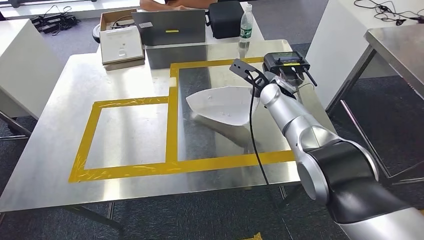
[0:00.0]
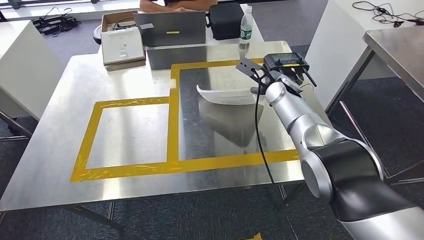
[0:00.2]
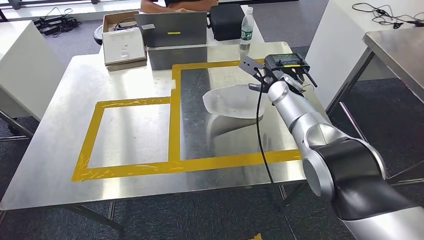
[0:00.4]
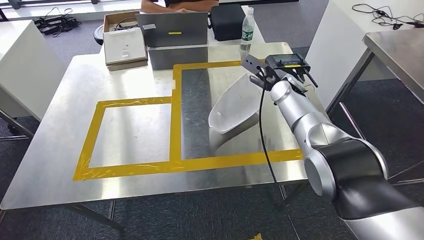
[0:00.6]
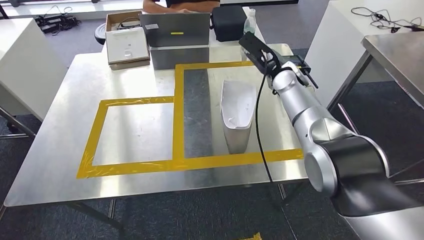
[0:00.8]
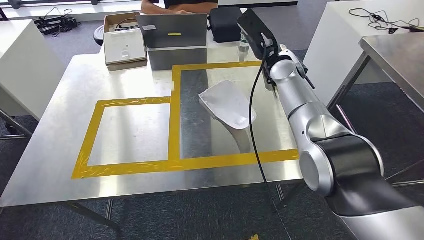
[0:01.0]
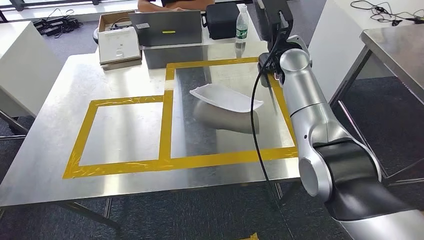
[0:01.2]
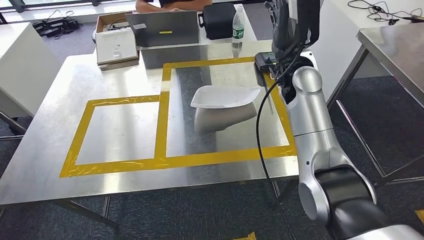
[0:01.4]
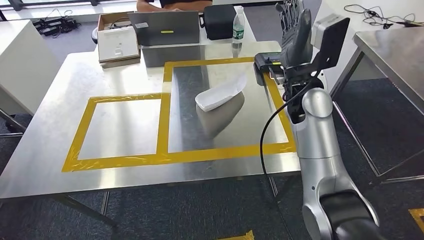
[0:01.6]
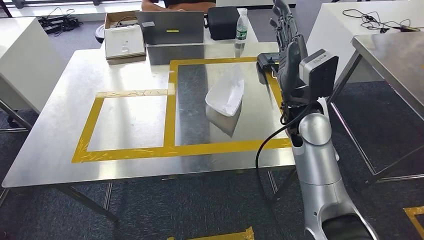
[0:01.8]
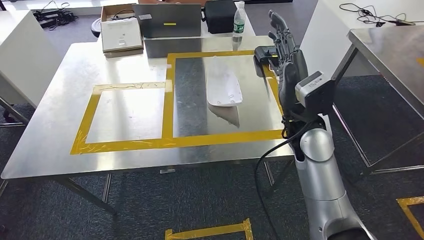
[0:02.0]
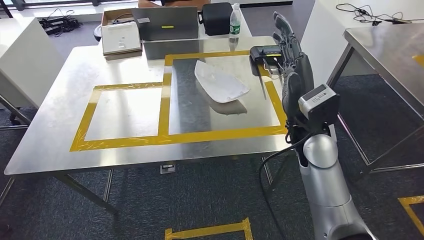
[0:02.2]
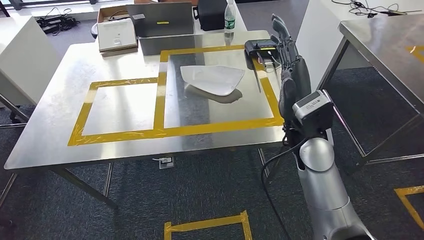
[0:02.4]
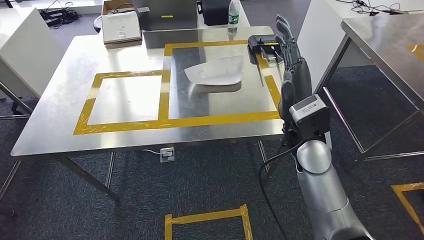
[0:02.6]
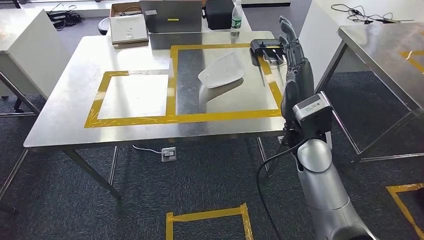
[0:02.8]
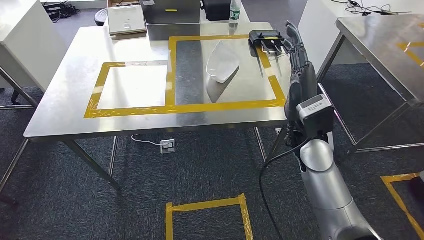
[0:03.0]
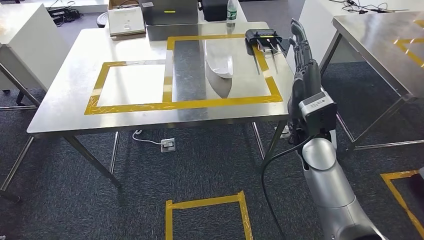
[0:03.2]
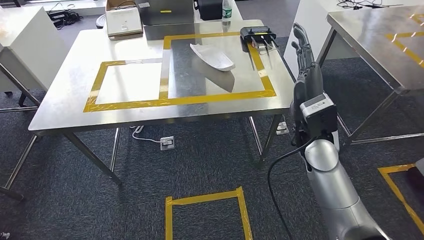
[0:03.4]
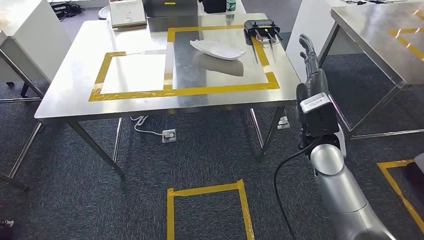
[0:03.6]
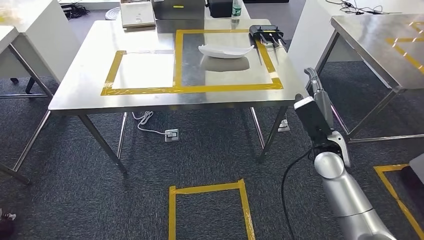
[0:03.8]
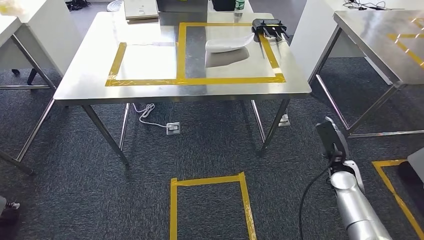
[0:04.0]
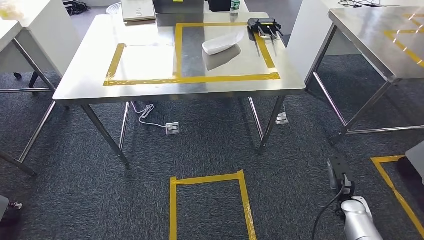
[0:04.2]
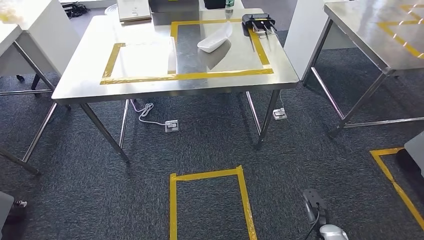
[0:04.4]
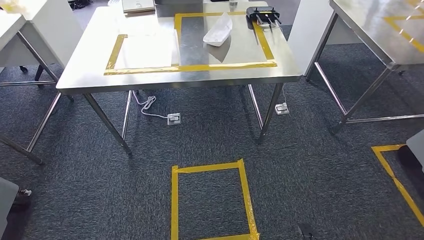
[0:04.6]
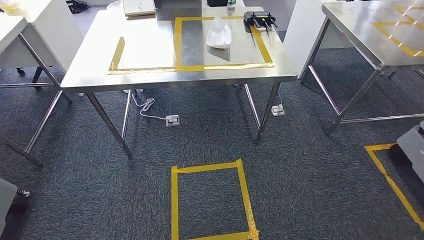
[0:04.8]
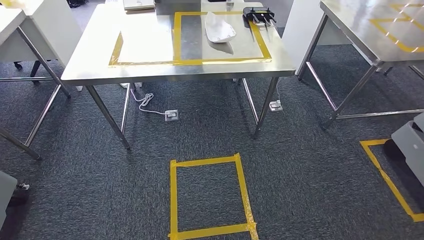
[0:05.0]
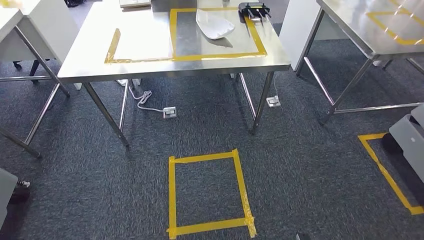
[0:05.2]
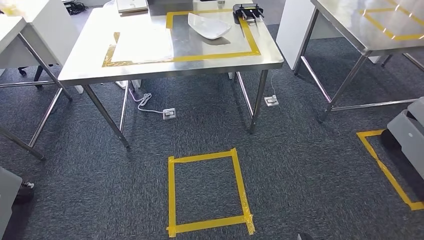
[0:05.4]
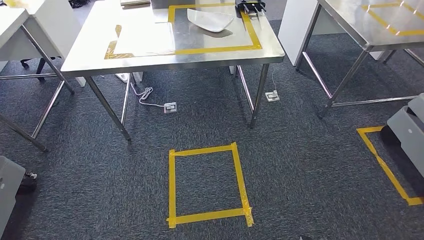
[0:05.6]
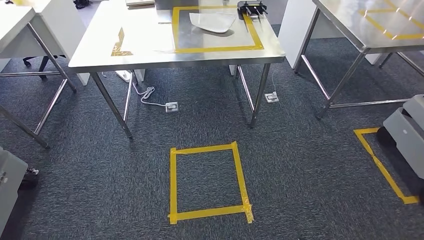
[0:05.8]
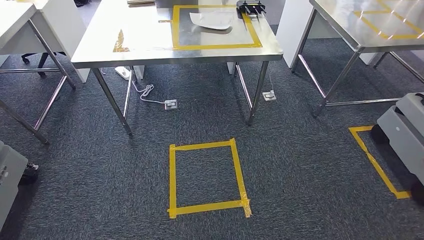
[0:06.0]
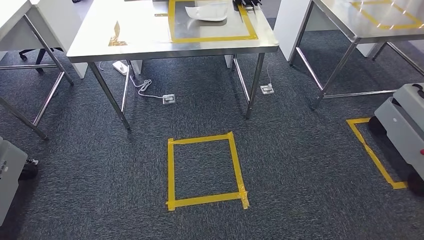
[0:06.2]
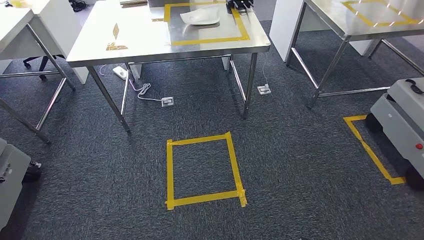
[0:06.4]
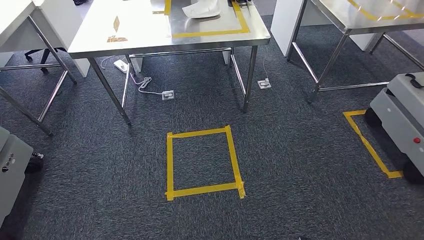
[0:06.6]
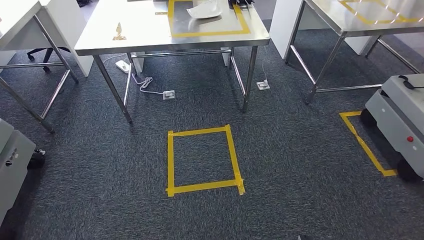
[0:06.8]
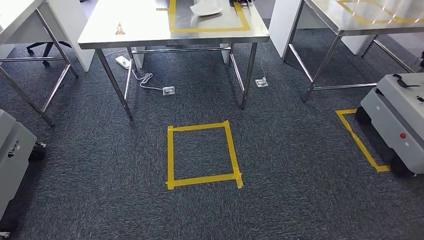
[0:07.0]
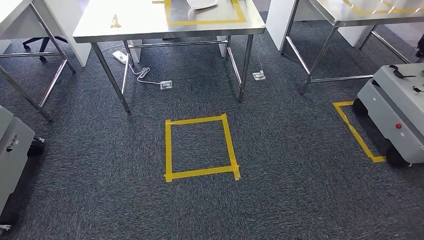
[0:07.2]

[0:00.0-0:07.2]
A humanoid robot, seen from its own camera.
Step, 0:00.0 to 0:01.4: Insert the small parts into the corresponding holes on the workbench.
Step, 0:02.0 to 0:07.2: Move to the initial position of the workbench.
